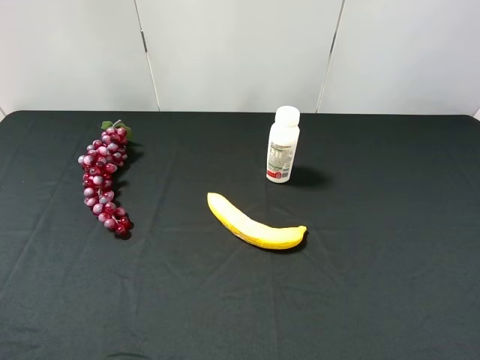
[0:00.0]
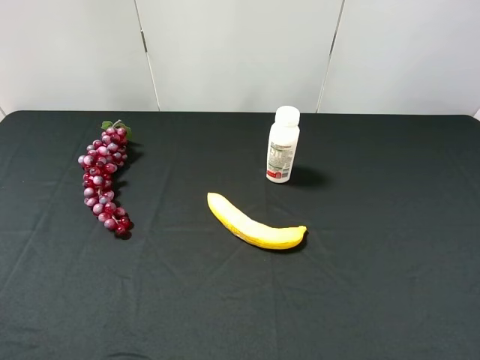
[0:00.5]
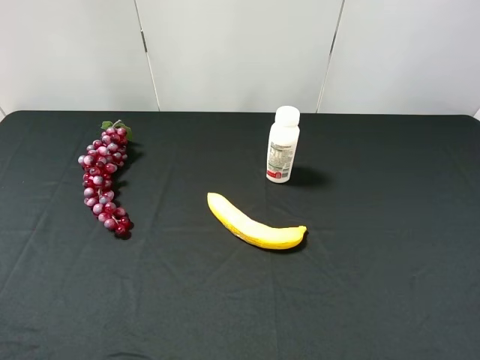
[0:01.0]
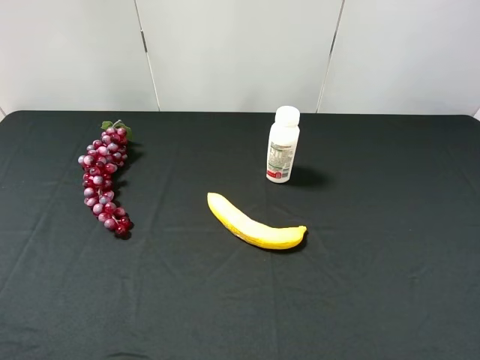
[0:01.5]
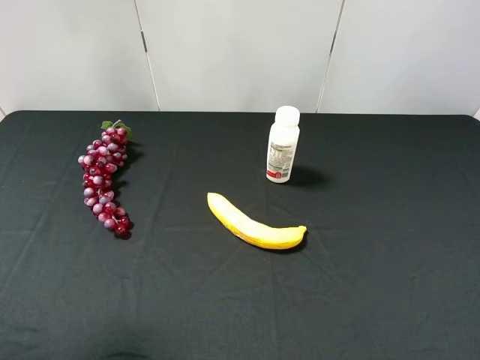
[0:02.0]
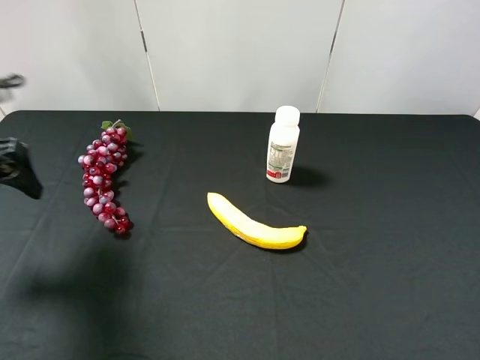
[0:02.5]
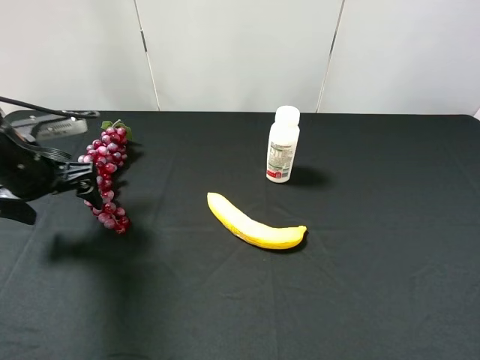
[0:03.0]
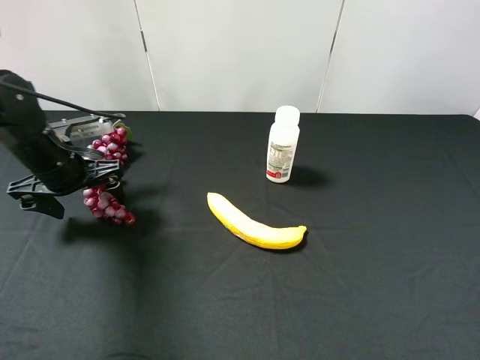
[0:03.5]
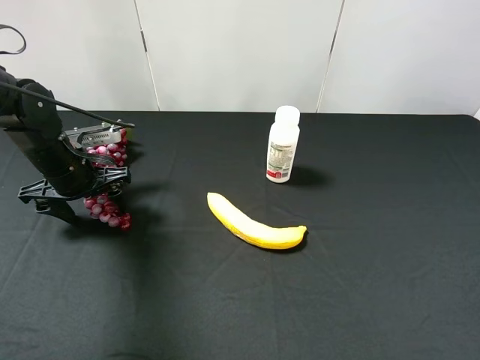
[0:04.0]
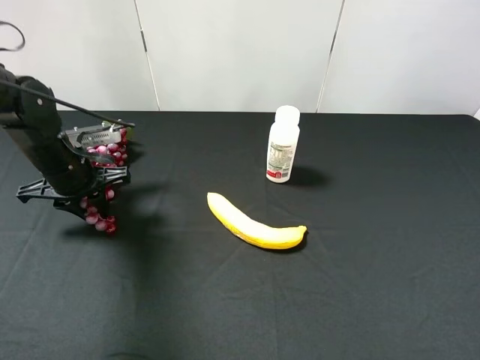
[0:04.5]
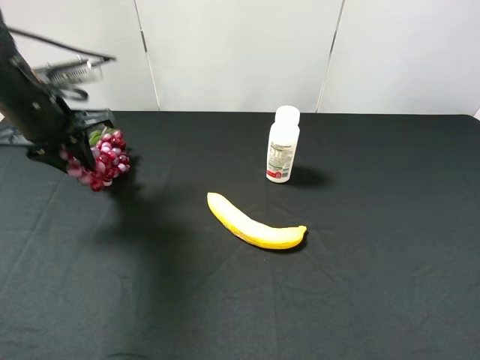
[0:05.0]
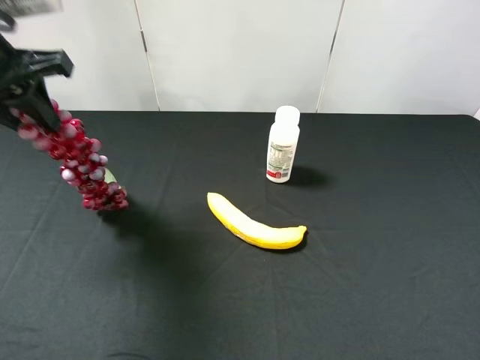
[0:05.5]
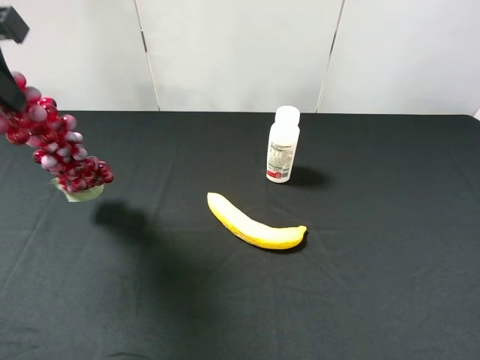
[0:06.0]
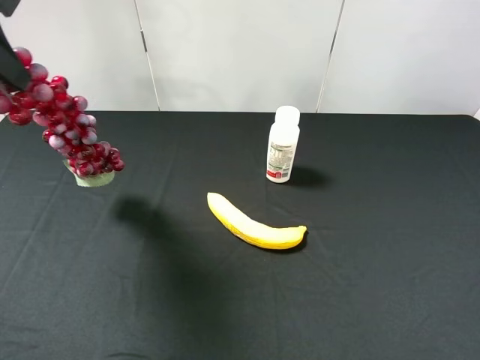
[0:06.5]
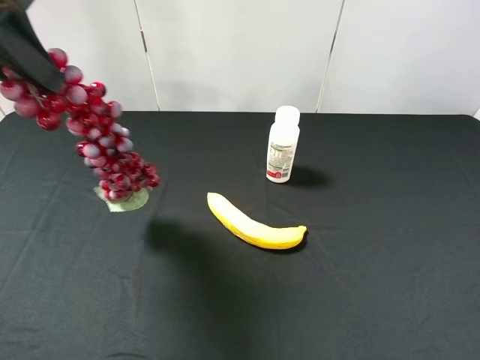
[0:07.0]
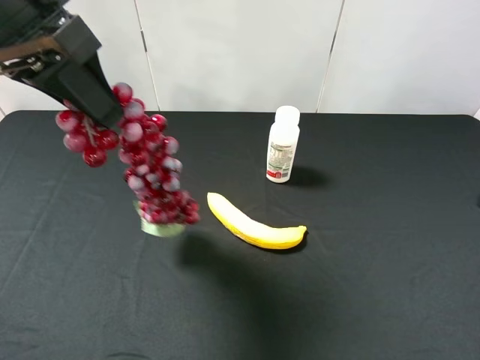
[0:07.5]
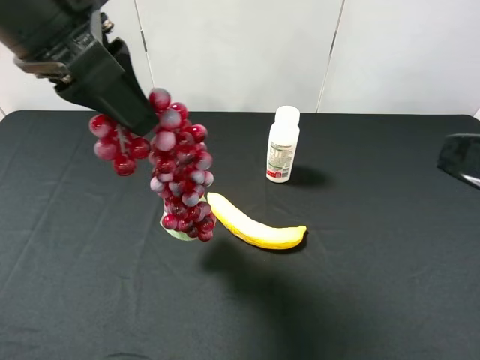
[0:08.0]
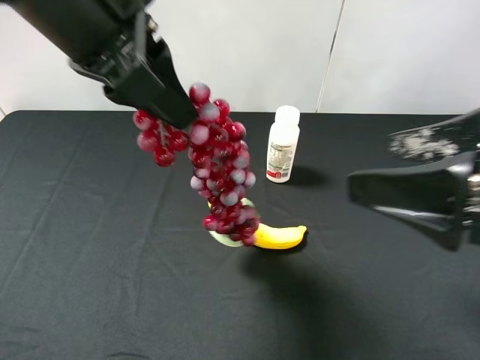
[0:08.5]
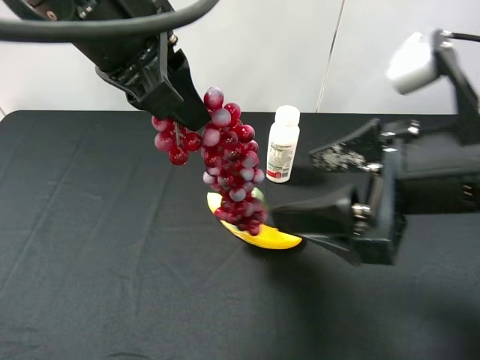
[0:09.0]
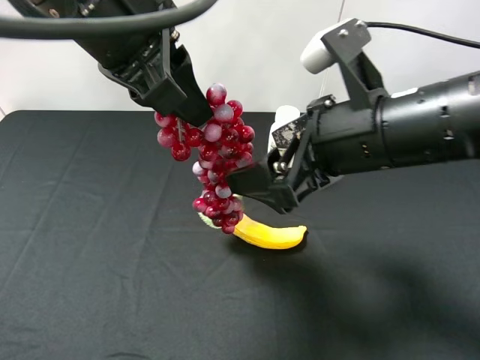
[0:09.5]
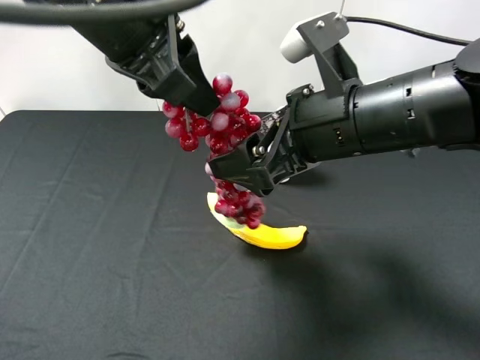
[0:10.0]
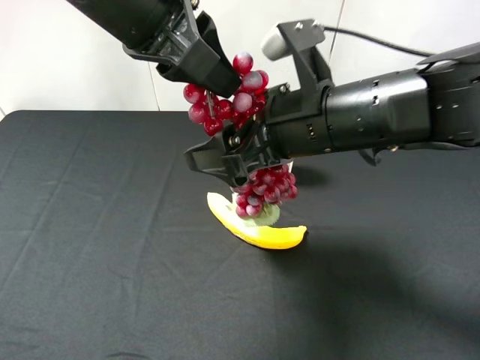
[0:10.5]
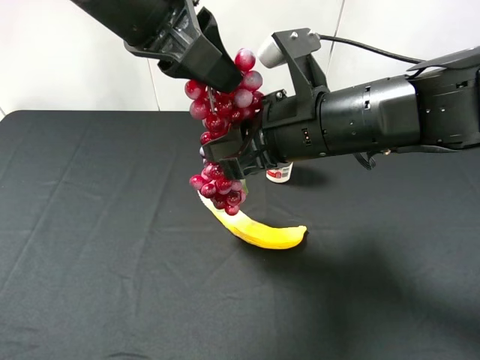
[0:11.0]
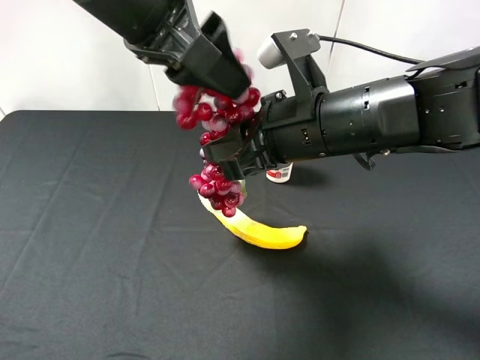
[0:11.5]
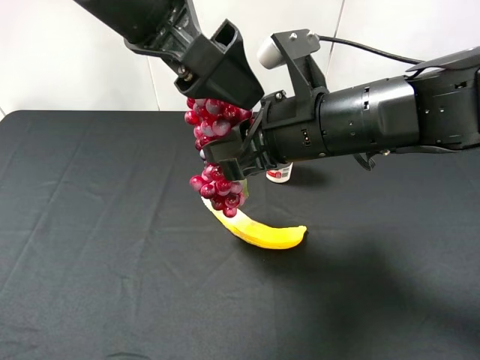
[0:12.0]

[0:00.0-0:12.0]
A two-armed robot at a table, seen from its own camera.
Task of the whole recording: use the left gripper to pick up the item and transfer it from the left gripper to the right gripper.
0:02.0 to 0:04.0: The left gripper goes approximately 30 cm downward and forward, and closes its fingers.
0:04.0 to 0:06.0: The left gripper shifts some 25 cm upward, and closes its fingers.
0:06.0 to 0:08.0: The left gripper heads to the right, covering about 15 cm; the right gripper travels forward by approximately 5 cm.
0:08.0 to 0:10.0: The right gripper is displaced forward and to the left by approximately 20 cm.
0:10.0 to 0:12.0: The right gripper closes, while the left gripper opens.

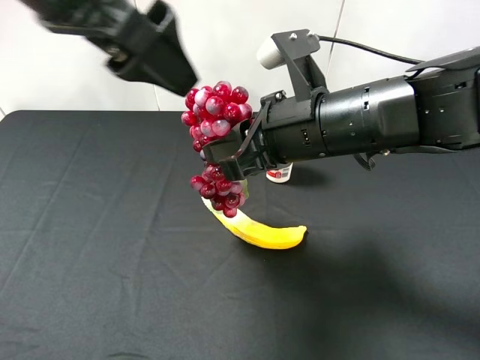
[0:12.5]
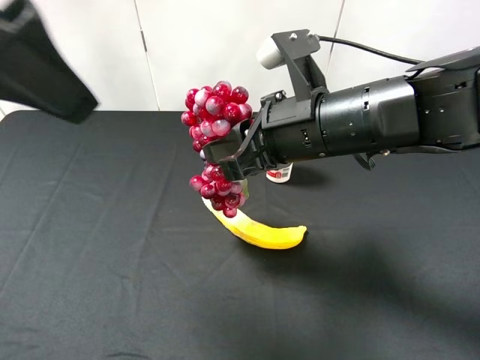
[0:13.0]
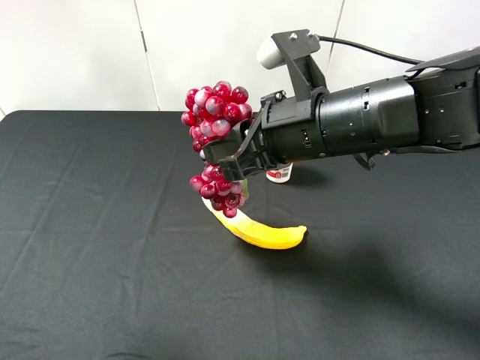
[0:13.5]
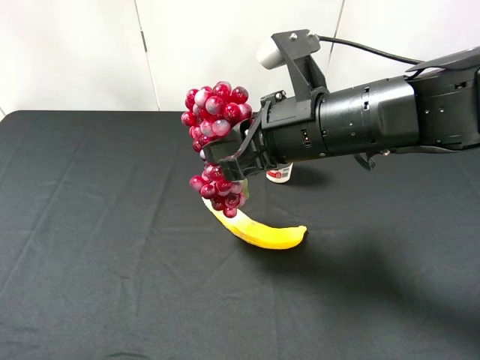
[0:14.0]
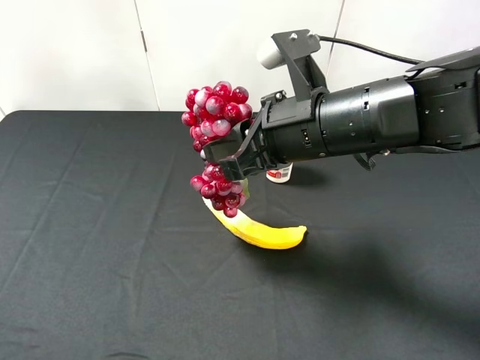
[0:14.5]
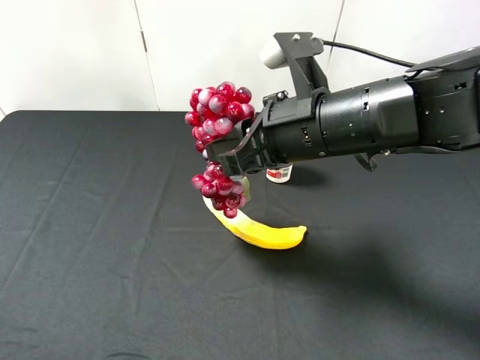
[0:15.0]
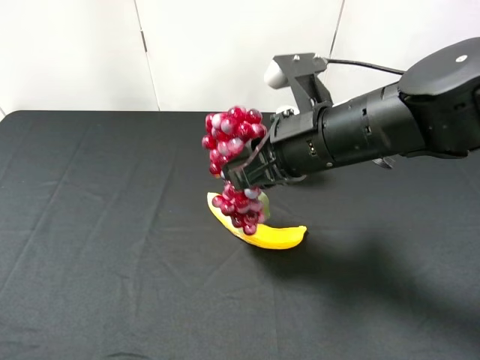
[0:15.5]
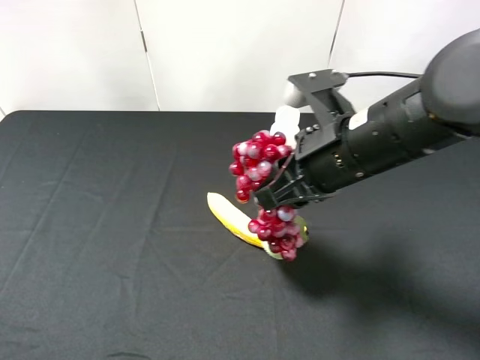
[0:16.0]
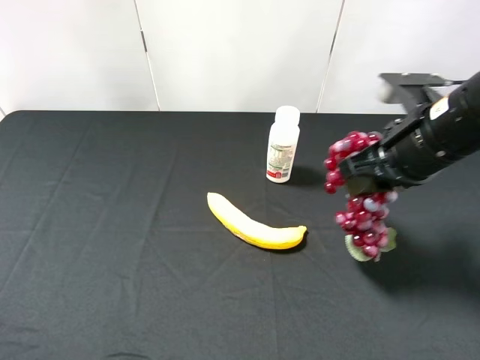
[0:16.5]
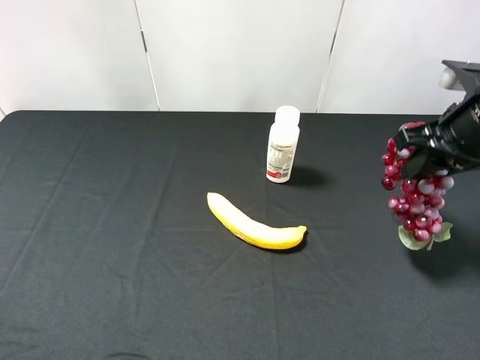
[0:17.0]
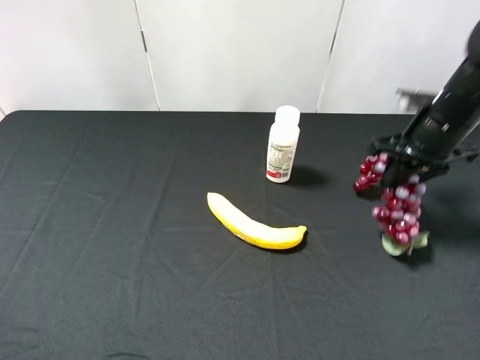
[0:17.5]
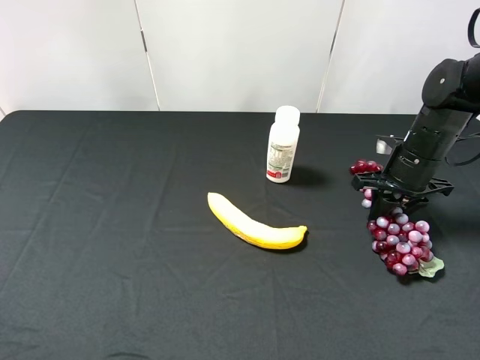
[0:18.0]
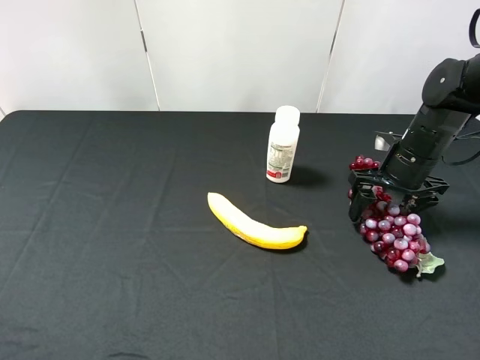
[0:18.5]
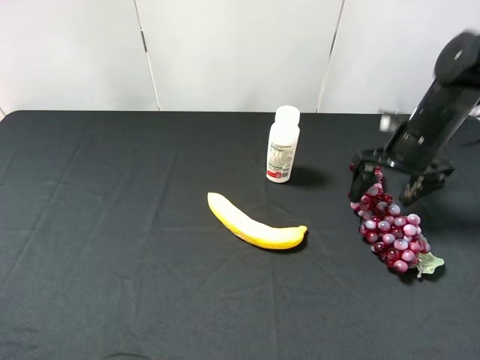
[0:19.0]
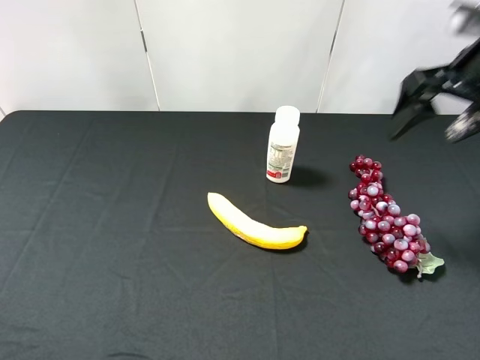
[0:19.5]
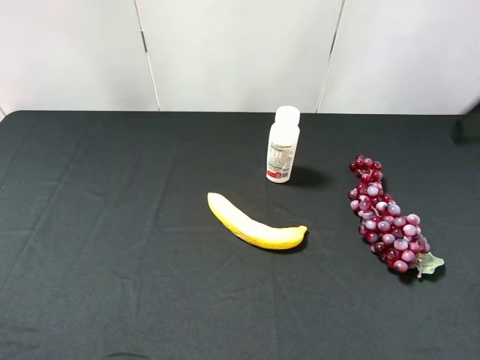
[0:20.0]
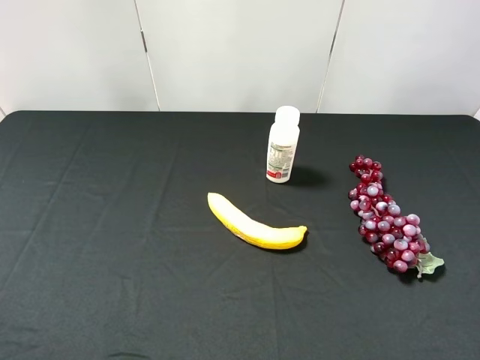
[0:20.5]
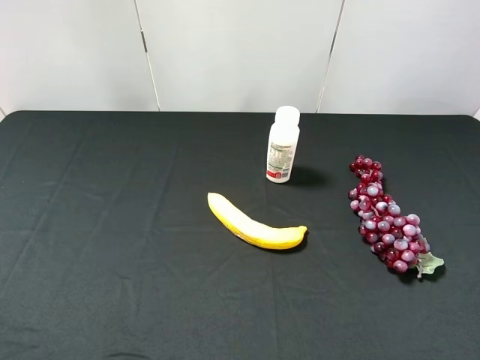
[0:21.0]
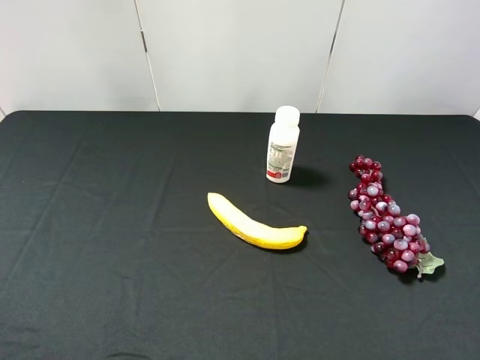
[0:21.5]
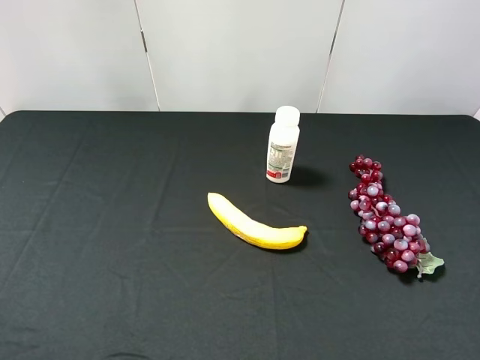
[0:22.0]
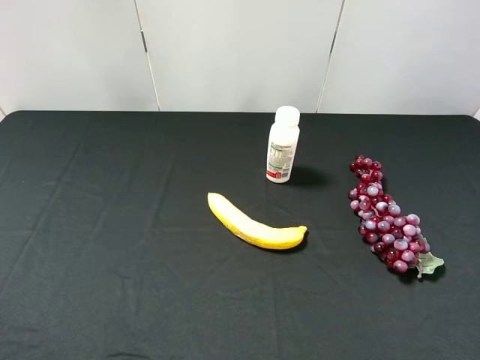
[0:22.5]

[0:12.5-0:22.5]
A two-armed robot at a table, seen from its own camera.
Task of the whole recording: use the left gripper to pick up the item and transfer it from the left gripper to the right gripper.
0:12.5 to 0:14.5: The left gripper heads backward, to the left and downward, covering approximately 30 cm.
0:14.5 to 0:16.5: The right gripper moves to the right, about 10 cm.
0:16.5 to 0:18.5: The right gripper heads downward, forward and to the right, covering about 15 cm, and opens.
0:18.5 to 0:20.5: The right gripper shifts approximately 35 cm backward and upward.
